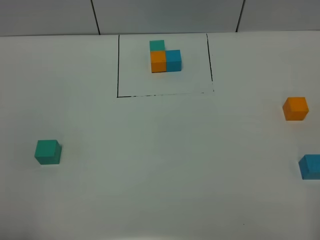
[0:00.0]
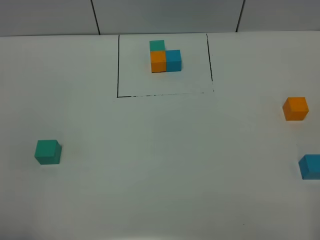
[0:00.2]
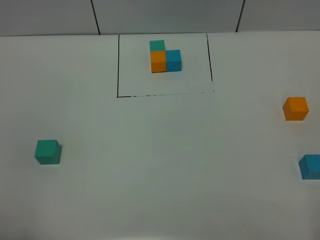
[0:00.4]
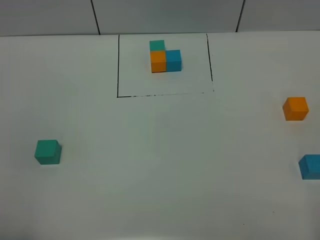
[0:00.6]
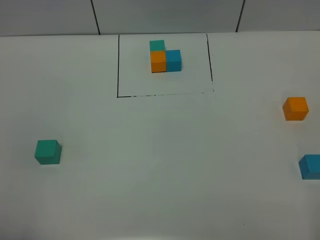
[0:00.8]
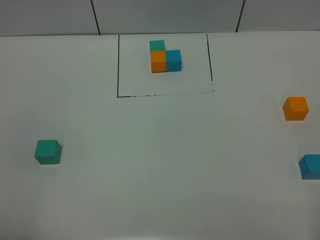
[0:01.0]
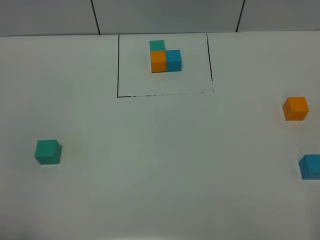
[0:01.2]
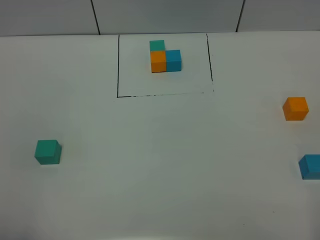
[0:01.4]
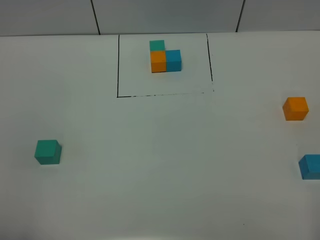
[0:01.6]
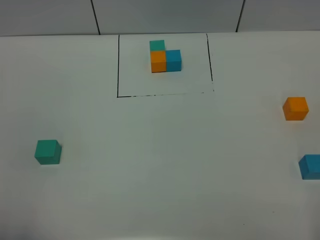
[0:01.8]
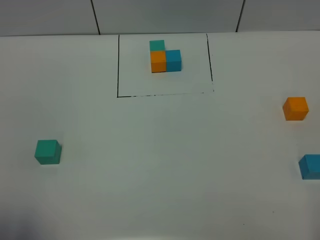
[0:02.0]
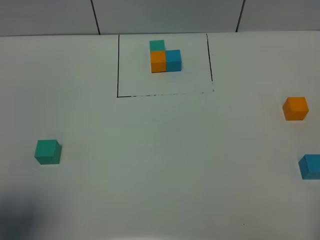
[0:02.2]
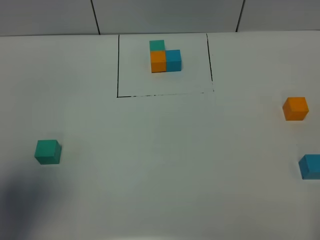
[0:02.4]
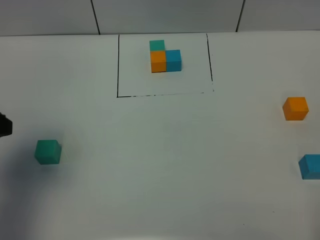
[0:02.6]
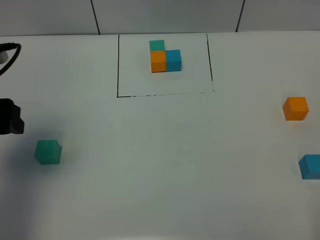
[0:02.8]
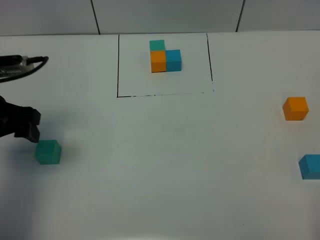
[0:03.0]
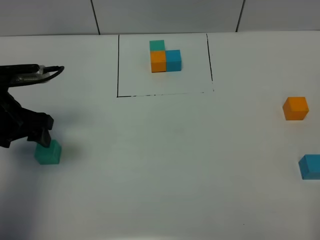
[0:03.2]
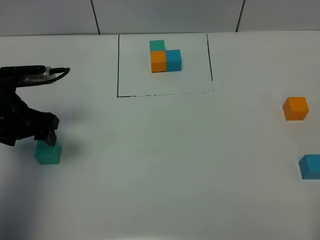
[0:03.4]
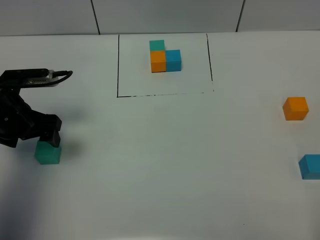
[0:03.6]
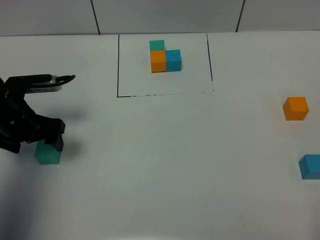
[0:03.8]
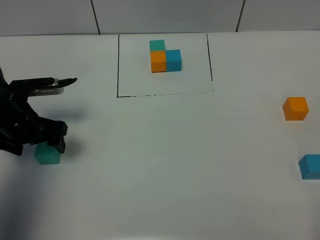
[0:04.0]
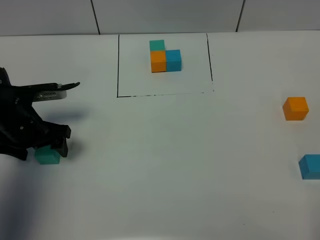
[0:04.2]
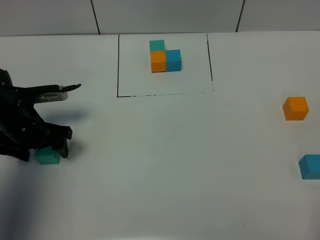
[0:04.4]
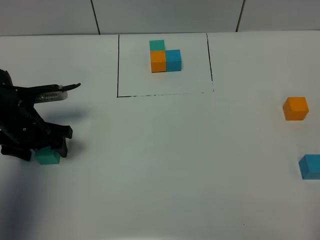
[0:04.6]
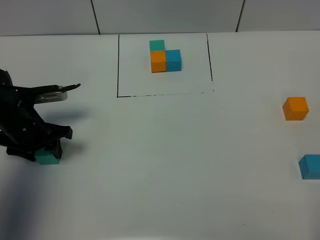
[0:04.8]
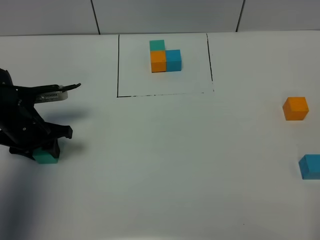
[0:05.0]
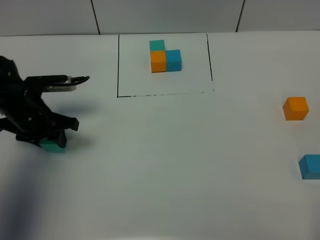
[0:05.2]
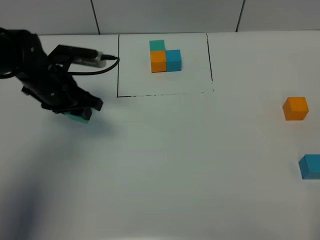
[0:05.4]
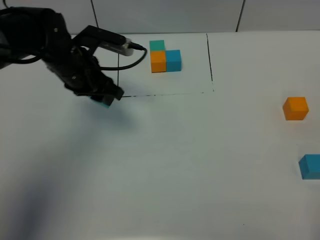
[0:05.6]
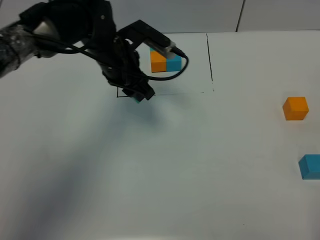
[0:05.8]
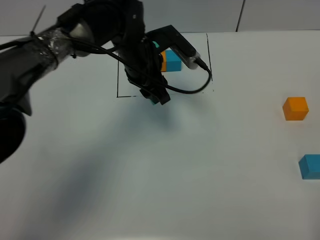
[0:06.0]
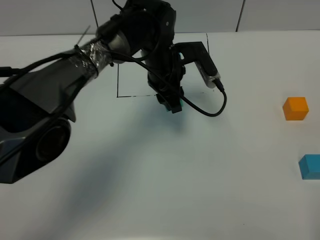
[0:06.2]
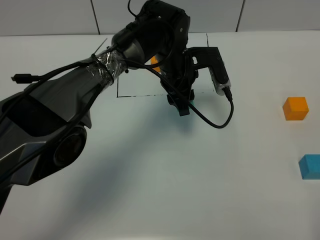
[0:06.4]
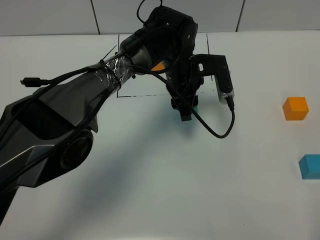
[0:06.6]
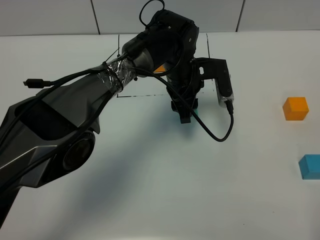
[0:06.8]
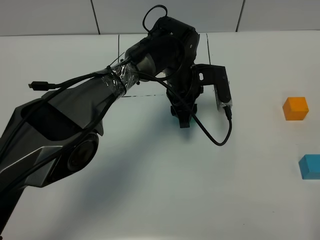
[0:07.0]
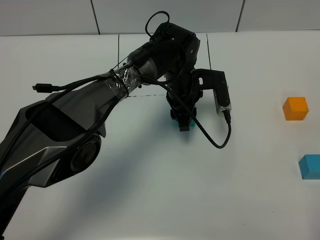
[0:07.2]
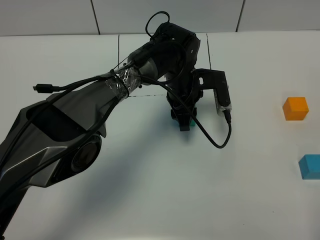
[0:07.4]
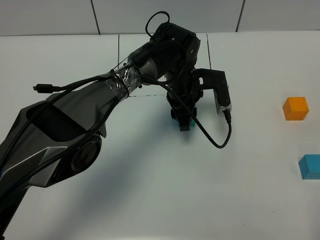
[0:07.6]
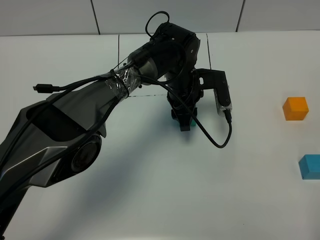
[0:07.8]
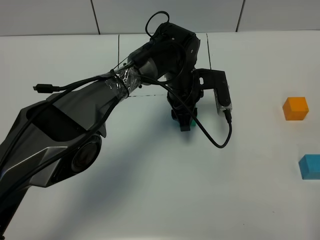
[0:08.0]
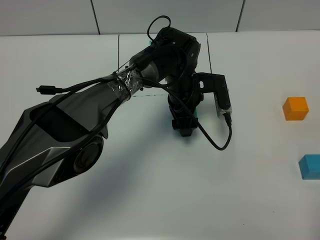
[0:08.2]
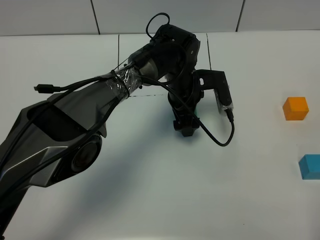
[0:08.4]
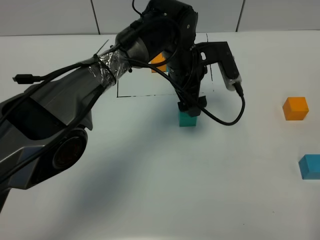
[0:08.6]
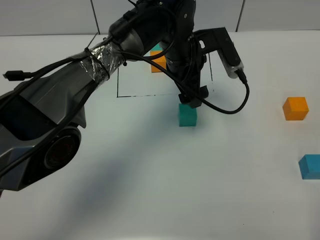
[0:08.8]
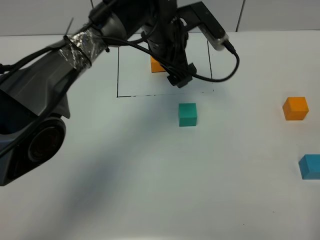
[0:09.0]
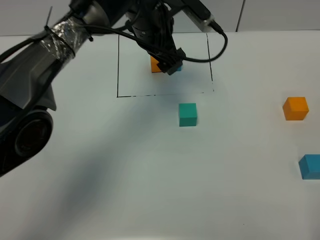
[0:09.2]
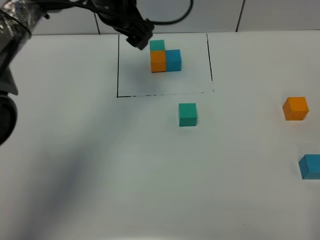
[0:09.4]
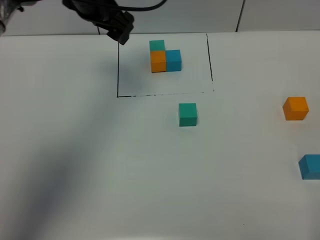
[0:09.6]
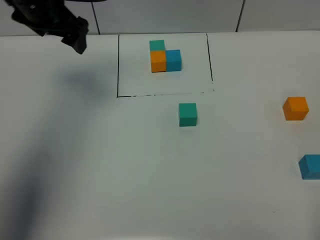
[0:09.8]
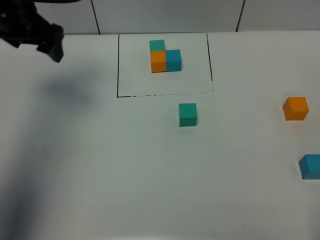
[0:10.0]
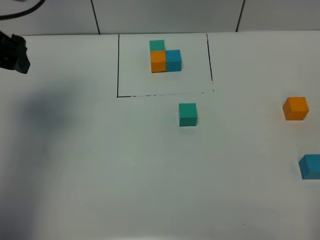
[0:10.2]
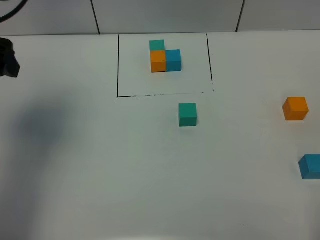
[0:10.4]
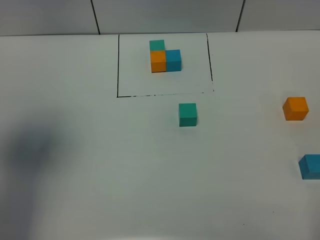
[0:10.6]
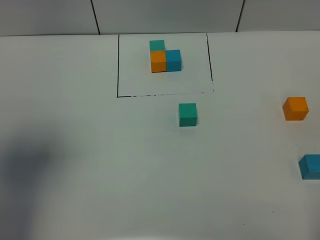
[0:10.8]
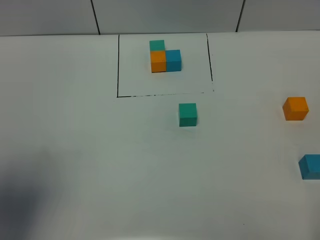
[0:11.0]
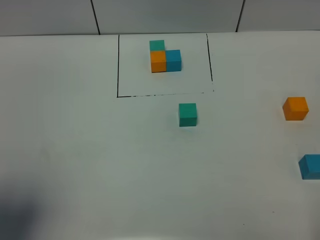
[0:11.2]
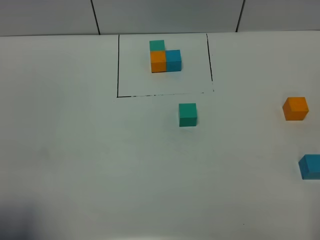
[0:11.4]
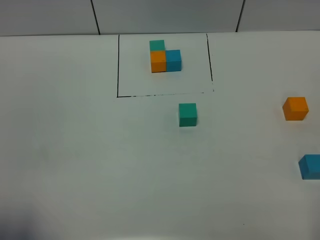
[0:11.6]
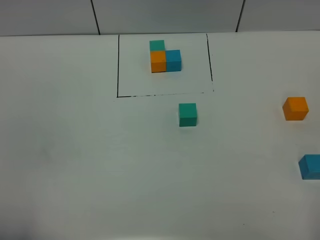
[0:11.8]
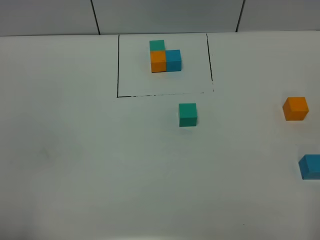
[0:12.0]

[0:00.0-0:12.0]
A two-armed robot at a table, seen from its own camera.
Task of the whole recording: According to the building block template in front, assemble the scattered blocks together.
Step, 0:00.0 to 0:08.0: Put the green build block in the center of the table.
0:00.0 to 0:01.6: Both grippers stay put.
0:01.6 to 0:03.0: The left gripper travels forward by some 30 cm.
0:03.0 to 0:04.4: The left gripper travels downward by roughly 10 cm.
0:04.4 to 0:06.0: The left gripper is displaced to the right and forward by some 25 cm, and closes up.
0:06.0 to 0:07.6: The left gripper is displaced downward and to the right by approximately 10 cm.
0:07.6 to 0:09.0: The left gripper shifts approximately 10 cm upward, and opens.
0:09.0 to 0:10.4: The left gripper travels to the left and backward by approximately 30 cm.
0:10.4 to 0:12.0: The left gripper moves backward, about 30 cm.

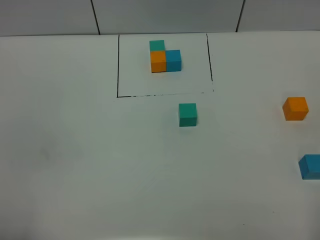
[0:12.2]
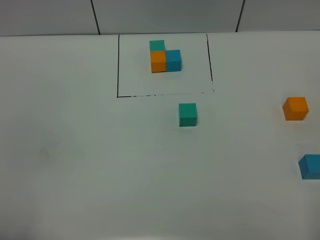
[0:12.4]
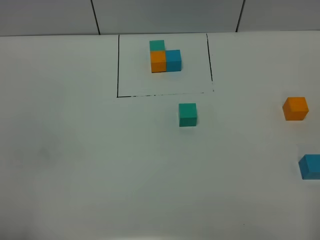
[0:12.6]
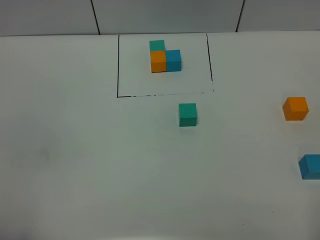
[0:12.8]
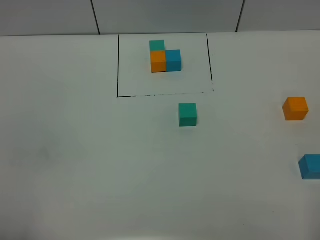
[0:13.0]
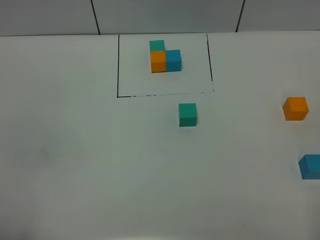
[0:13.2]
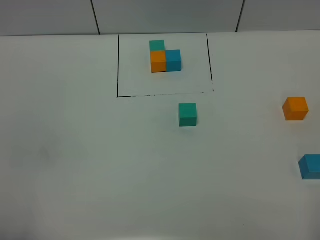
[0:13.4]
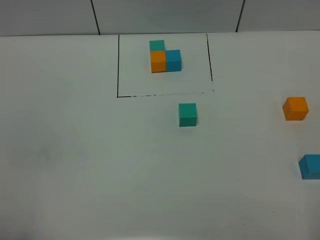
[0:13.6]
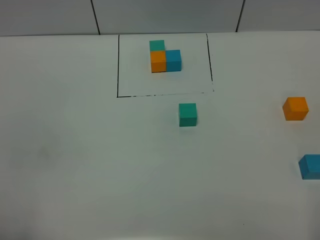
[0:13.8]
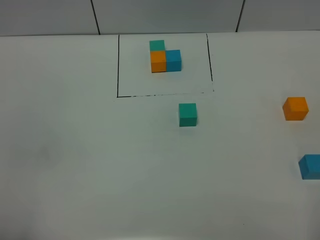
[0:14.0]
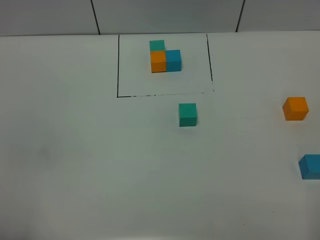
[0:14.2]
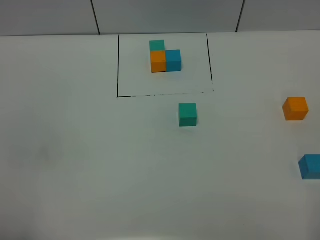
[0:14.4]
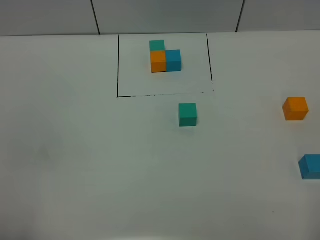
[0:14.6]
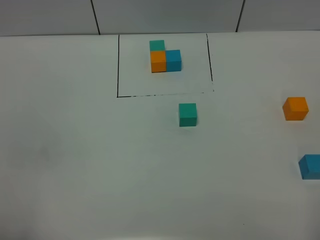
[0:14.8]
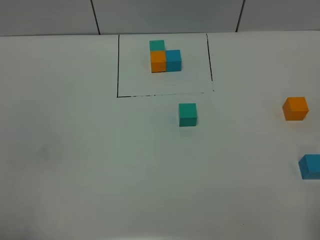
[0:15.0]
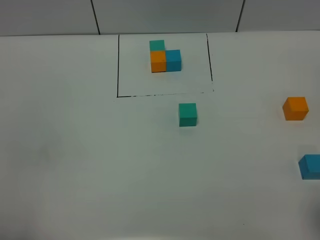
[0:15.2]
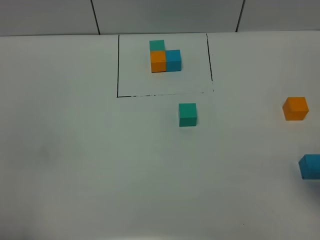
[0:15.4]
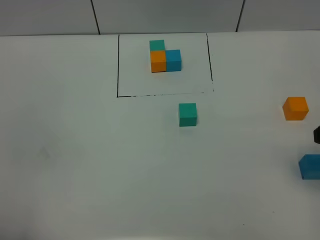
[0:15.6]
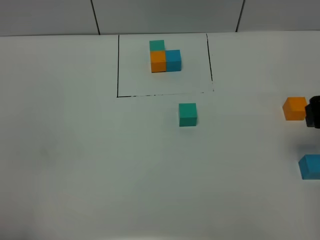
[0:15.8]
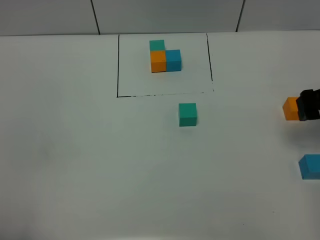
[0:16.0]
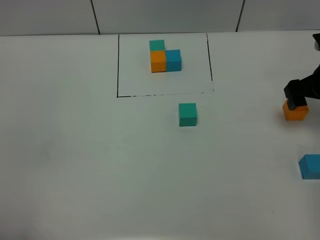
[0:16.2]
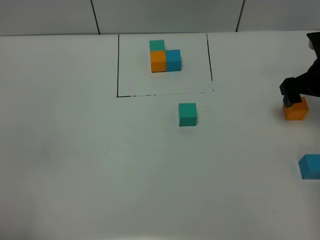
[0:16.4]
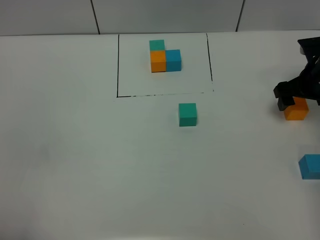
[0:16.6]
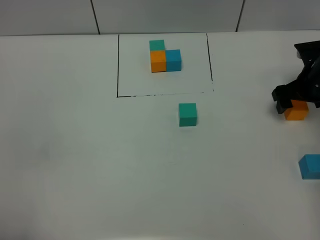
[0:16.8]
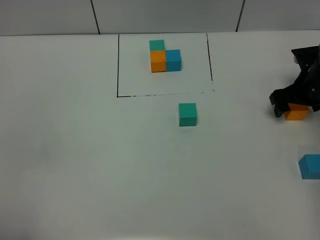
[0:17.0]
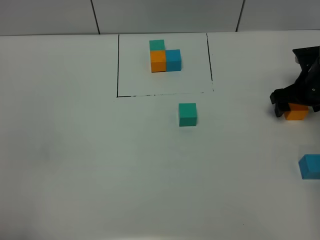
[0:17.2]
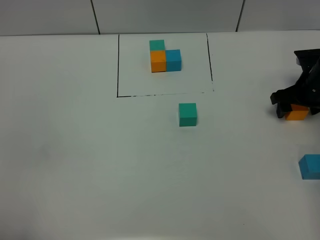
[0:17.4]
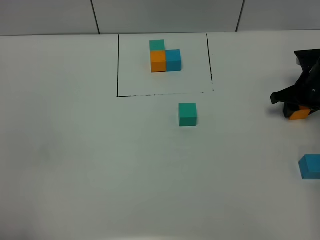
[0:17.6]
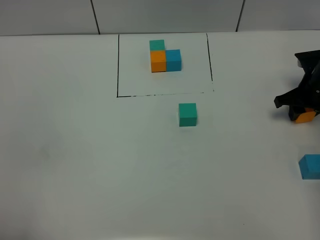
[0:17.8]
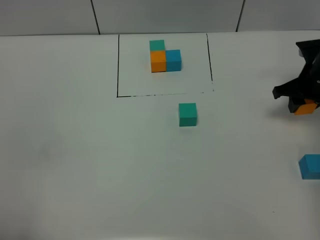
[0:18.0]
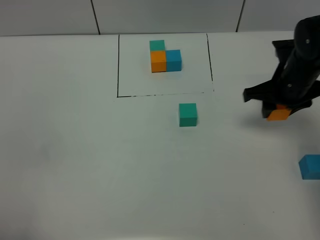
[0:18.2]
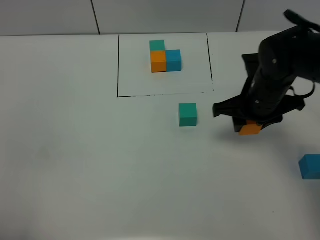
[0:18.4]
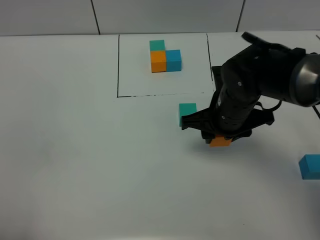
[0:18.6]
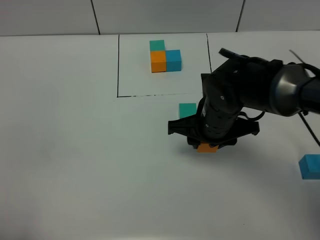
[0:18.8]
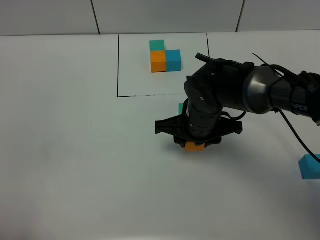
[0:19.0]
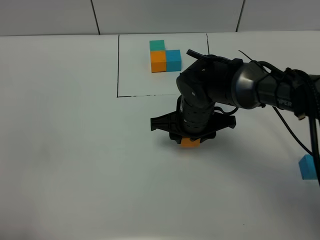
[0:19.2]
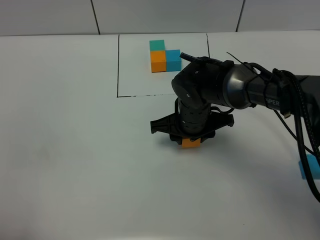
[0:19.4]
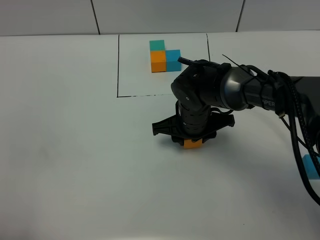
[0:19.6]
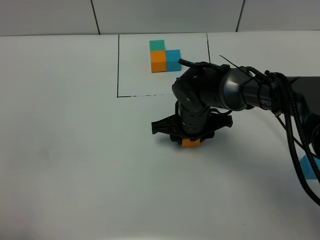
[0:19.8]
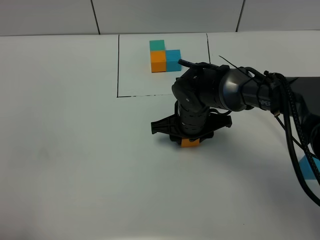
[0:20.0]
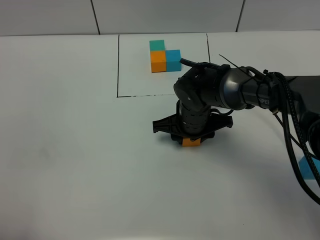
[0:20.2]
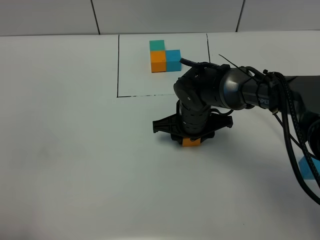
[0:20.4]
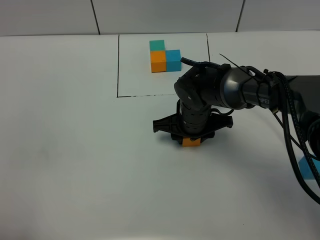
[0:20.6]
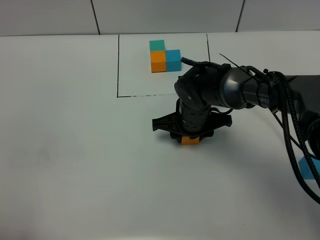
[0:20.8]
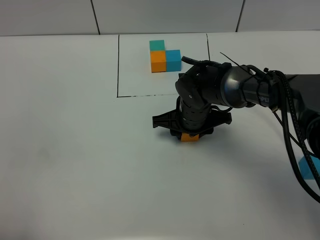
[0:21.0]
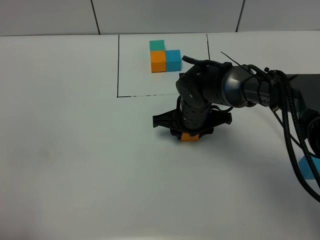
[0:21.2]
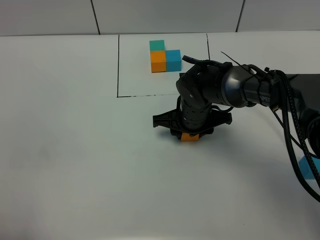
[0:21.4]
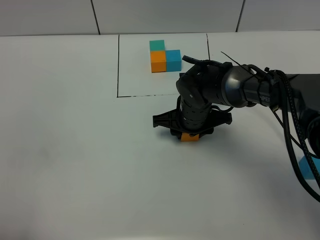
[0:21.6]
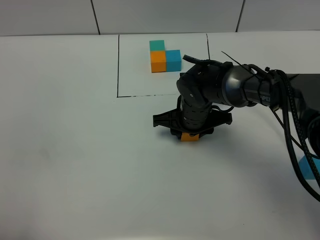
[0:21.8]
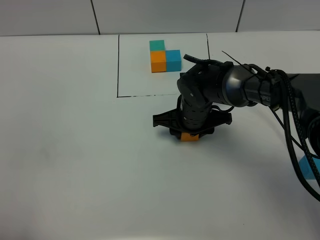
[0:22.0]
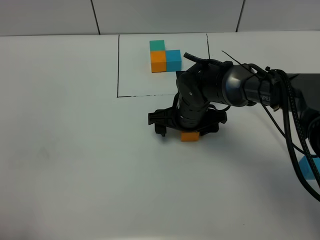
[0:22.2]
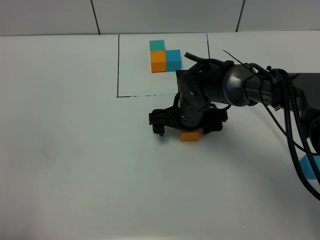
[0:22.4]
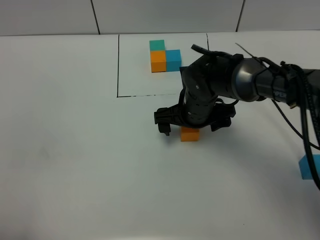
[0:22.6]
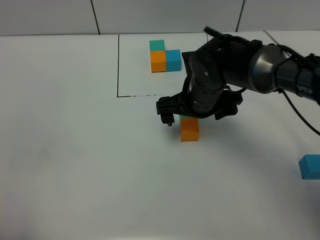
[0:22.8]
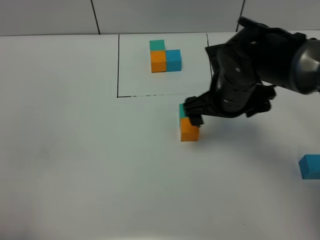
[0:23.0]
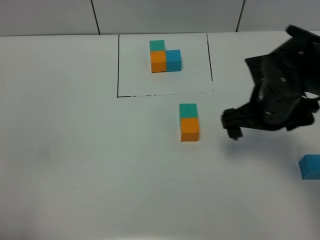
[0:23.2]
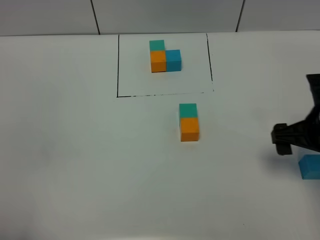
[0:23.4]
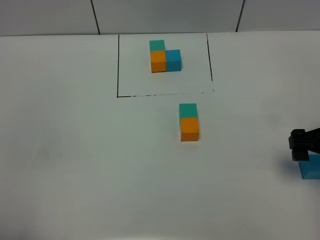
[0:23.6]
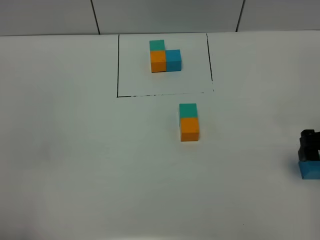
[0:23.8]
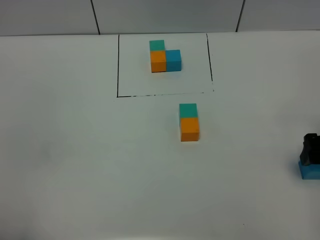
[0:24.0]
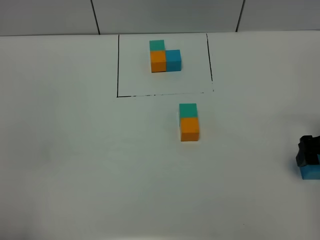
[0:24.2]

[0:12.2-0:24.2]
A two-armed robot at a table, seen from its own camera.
Task of the whole recording: According to the building block template in front, assemble the scattered blocks together.
Step, 0:12.2 to 0:22.0: Put the orange build block on the behind of the green build block.
0:12.2 to 0:13.8: Both grippers stay put.
0:15.2 to 0:16.6: The right gripper heads forward and downward, covering about 35 cm.
0:16.6 to 0:18.2: The right gripper moves to the left, some 10 cm, and closes.
0:18.2 to 0:19.8: The right gripper travels to the left by some 15 cm.
0:19.8 to 0:21.2: There are only small adjustments of the grippers.
0:21.2 to 0:22.6: The right gripper opens its fingers.
0:22.6 to 0:24.2: The right gripper heads to the right, covering some 25 cm.
